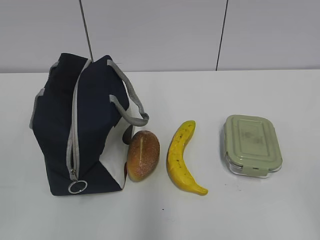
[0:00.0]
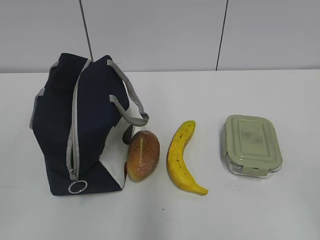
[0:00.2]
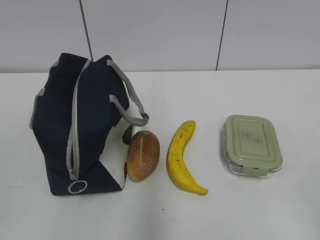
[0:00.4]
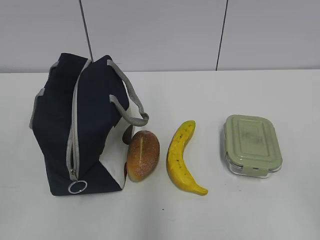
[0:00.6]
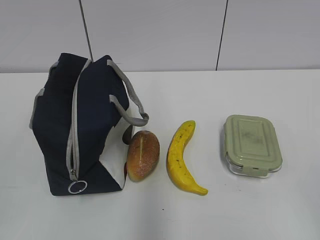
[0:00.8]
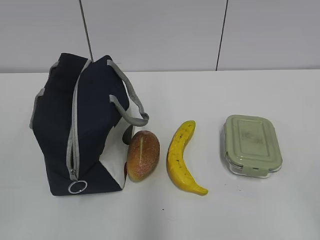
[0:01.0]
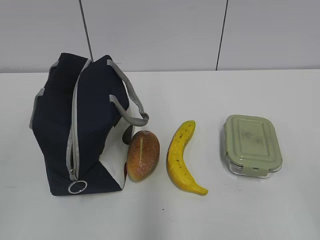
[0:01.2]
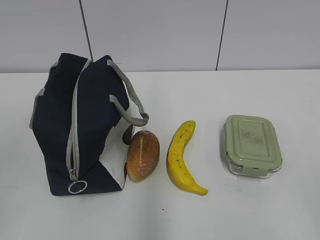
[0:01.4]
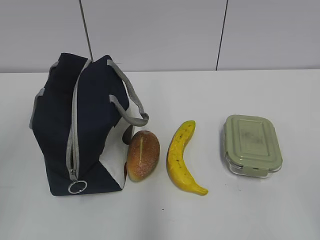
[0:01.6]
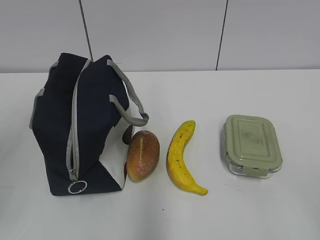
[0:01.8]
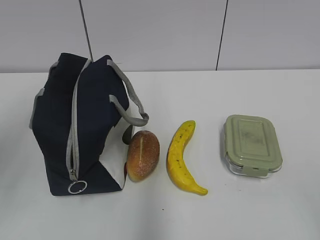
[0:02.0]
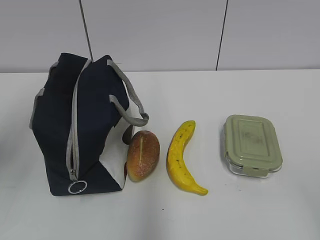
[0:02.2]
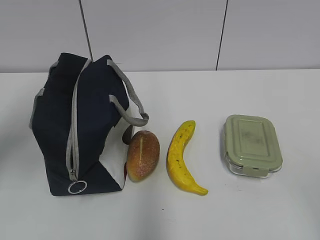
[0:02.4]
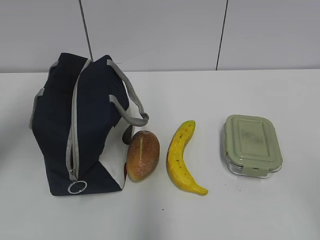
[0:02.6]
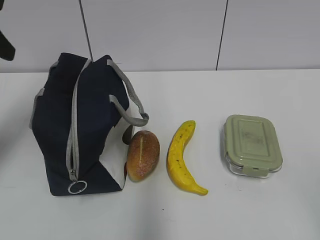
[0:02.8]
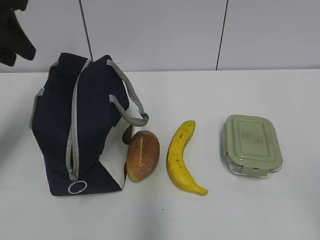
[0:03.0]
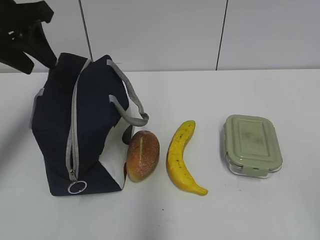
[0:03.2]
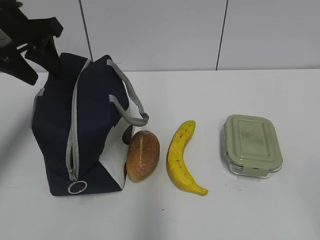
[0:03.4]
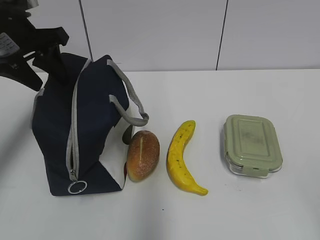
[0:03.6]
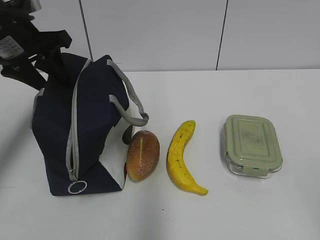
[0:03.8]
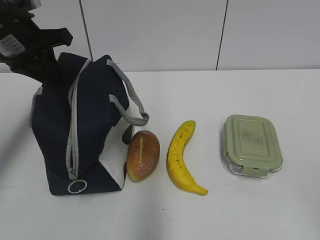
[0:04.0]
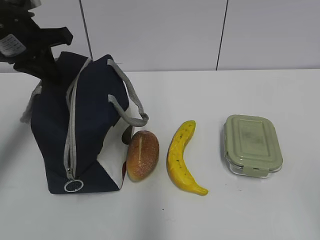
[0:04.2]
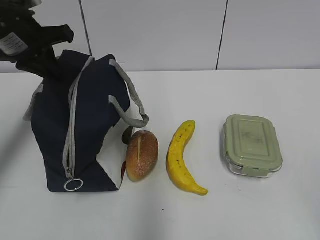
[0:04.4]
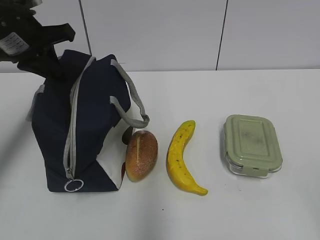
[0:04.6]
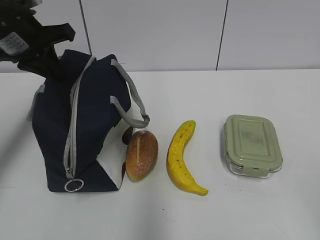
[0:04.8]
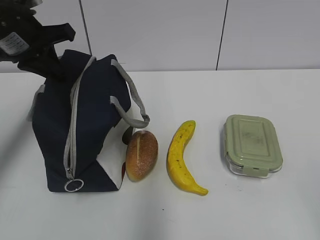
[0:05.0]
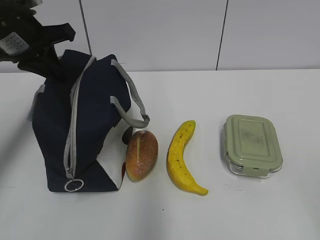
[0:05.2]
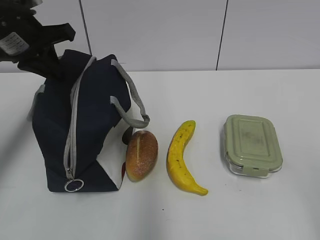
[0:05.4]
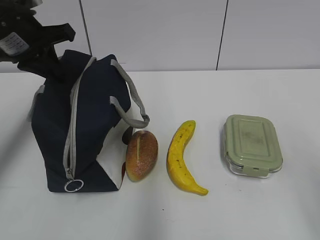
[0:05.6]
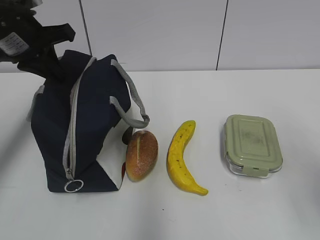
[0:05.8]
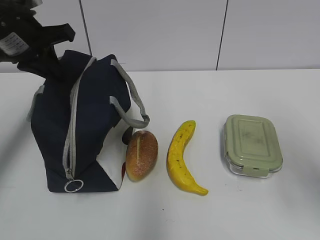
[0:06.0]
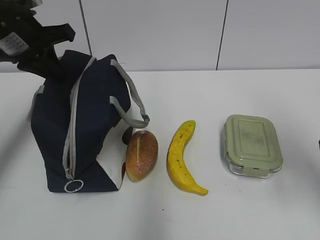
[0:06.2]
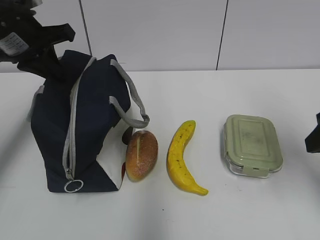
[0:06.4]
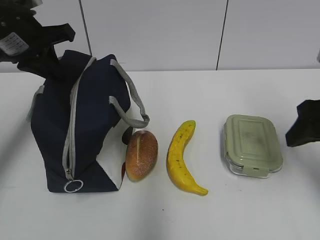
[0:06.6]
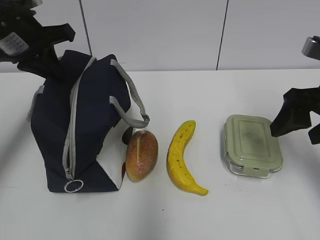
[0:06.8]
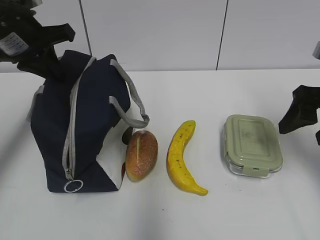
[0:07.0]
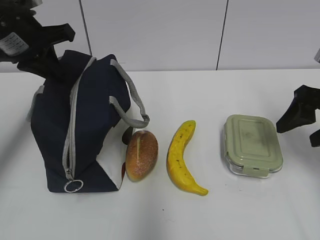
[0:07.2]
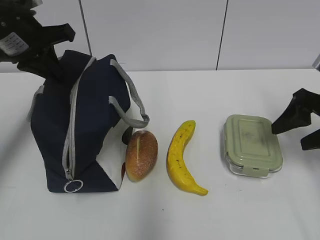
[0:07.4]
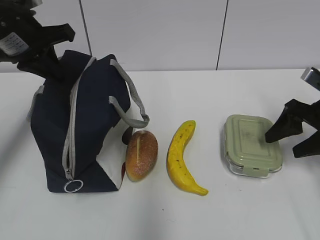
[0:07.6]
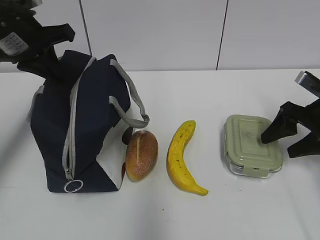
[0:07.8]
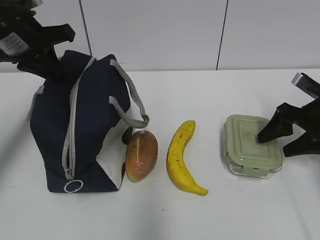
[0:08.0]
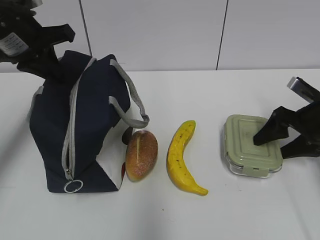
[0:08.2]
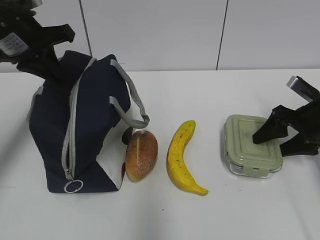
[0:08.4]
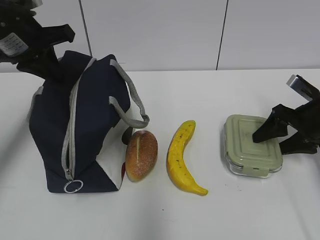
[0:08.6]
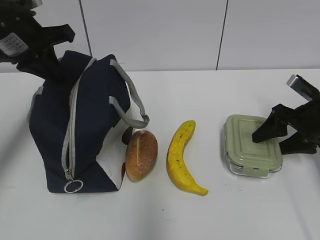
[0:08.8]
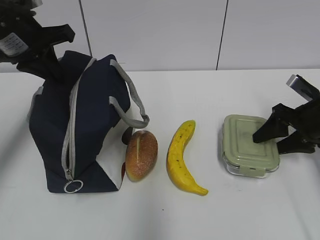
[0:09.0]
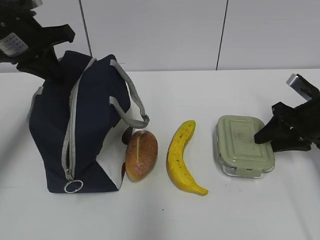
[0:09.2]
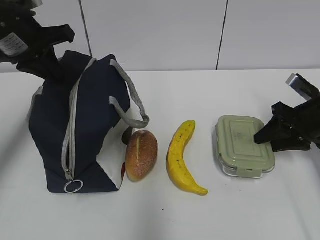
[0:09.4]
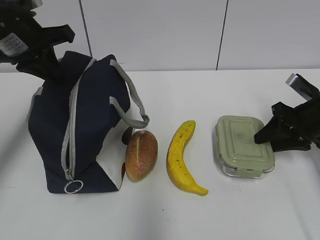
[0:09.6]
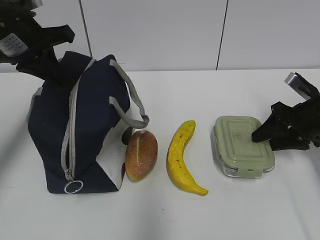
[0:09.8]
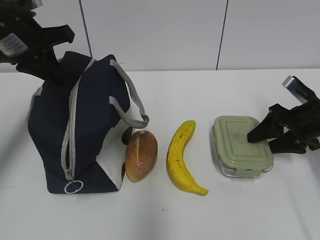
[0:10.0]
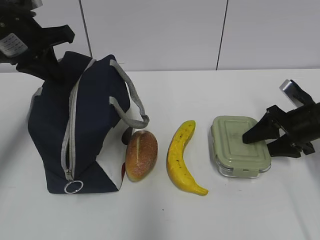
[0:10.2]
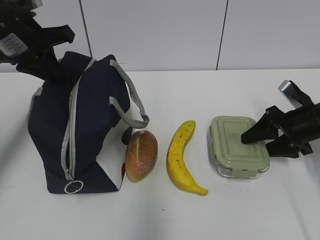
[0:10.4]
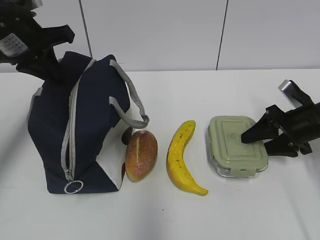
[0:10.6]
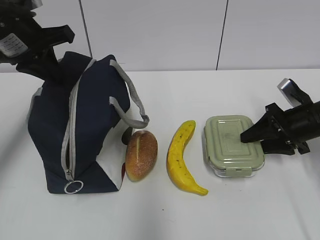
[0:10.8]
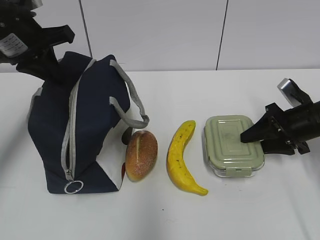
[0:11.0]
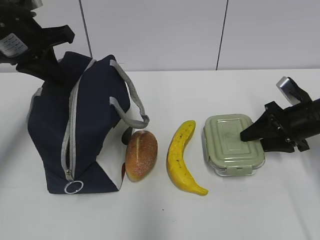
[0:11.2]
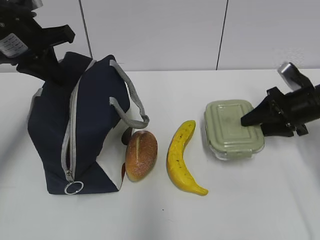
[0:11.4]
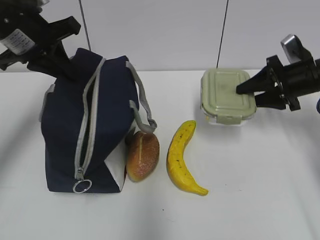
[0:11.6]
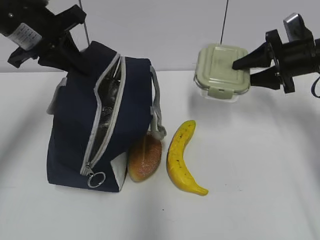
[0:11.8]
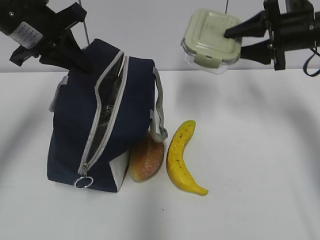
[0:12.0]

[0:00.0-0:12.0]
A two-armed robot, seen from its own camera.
Step, 0:00.0 to 0:11.0: Grab the lunch box with your right hand.
0:01.6 to 0:03.0: The left gripper moves forward, approximately 25 cm.
0:03.0 to 0:04.4: The left gripper shifts about 10 cm downward and forward, and closes its fingers.
0:04.4 to 0:06.0: The right gripper is displaced forward by about 15 cm.
0:06.0 to 0:07.6: The right gripper shifts roughly 20 cm forward and downward.
0:07.6 to 0:09.0: The grippers stay close to where they were, moving slightly.
0:09.0 to 0:10.4: The grippers make only small movements.
0:10.4 to 0:12.0: The right gripper shifts about 15 cm upward and forward.

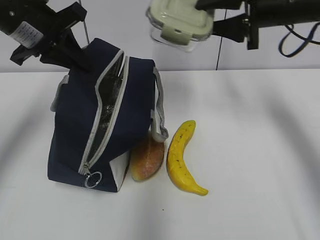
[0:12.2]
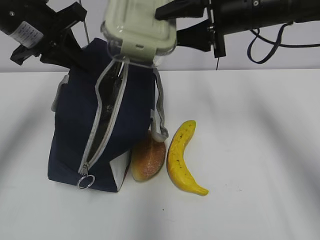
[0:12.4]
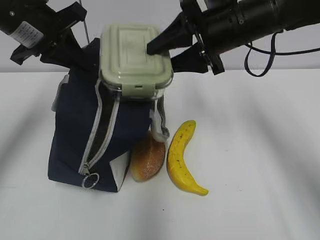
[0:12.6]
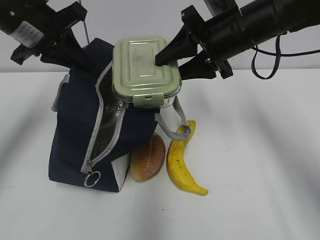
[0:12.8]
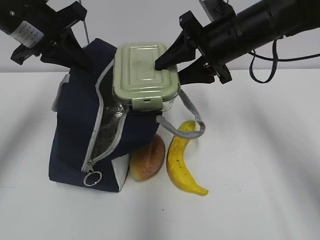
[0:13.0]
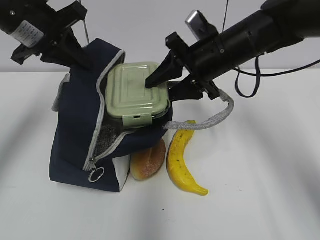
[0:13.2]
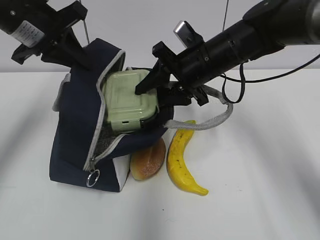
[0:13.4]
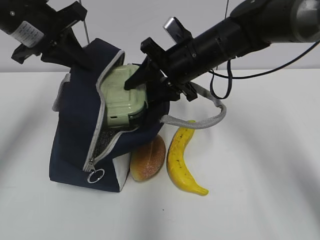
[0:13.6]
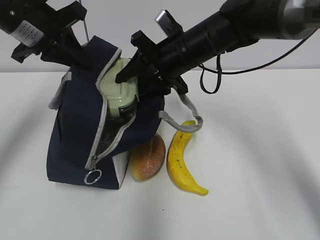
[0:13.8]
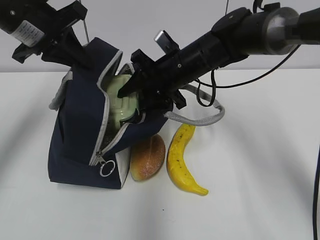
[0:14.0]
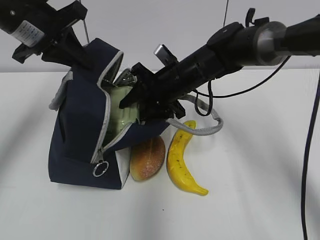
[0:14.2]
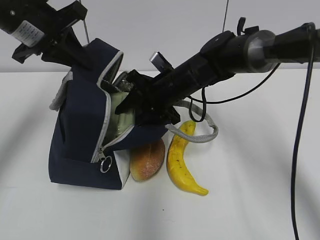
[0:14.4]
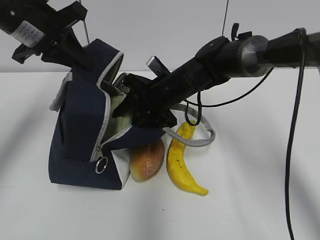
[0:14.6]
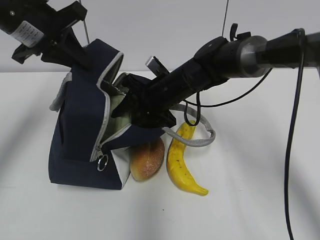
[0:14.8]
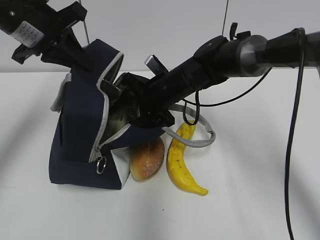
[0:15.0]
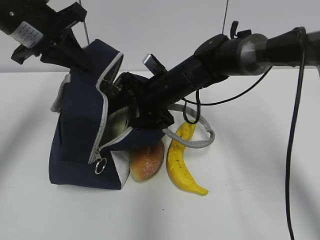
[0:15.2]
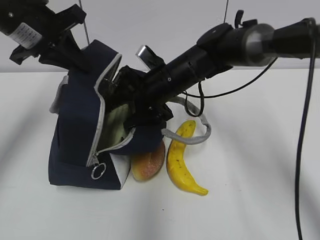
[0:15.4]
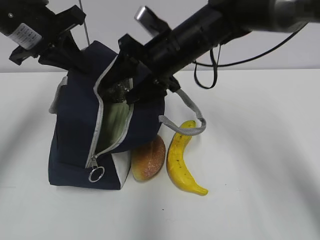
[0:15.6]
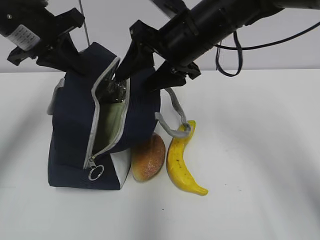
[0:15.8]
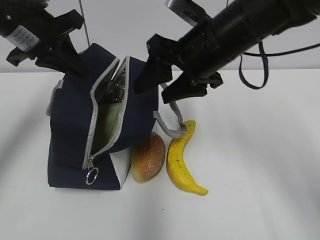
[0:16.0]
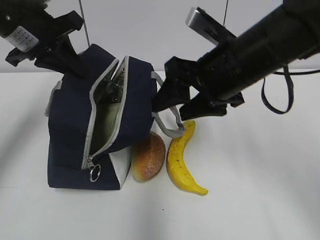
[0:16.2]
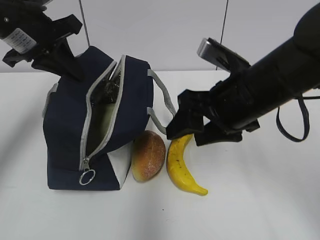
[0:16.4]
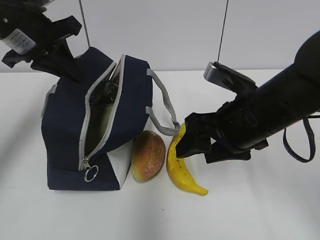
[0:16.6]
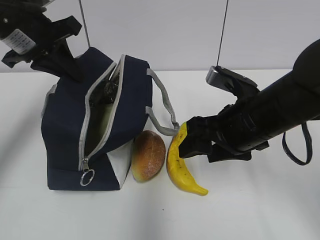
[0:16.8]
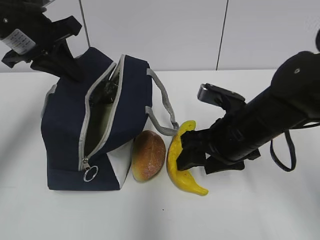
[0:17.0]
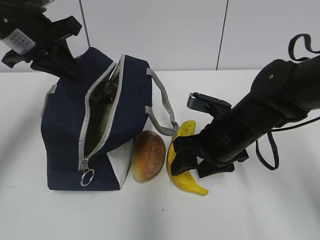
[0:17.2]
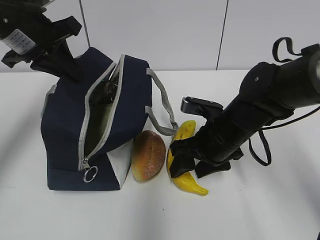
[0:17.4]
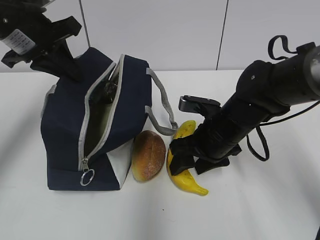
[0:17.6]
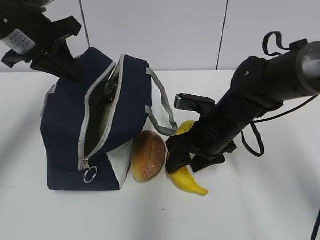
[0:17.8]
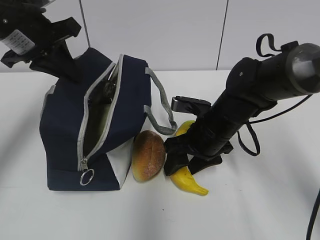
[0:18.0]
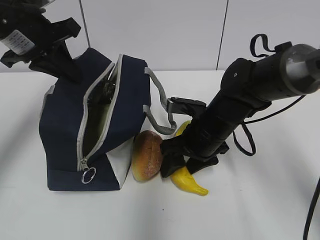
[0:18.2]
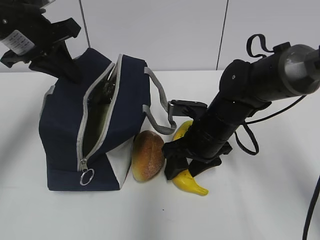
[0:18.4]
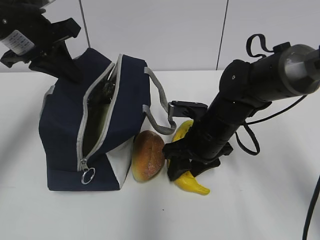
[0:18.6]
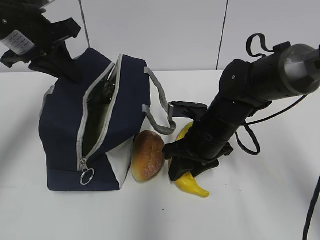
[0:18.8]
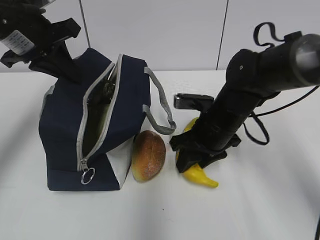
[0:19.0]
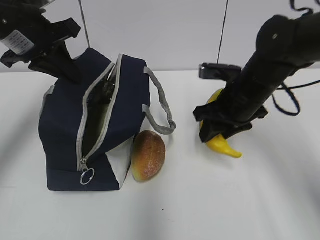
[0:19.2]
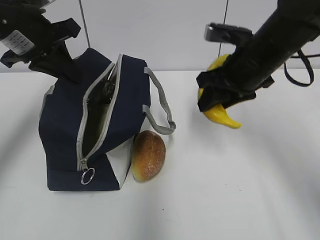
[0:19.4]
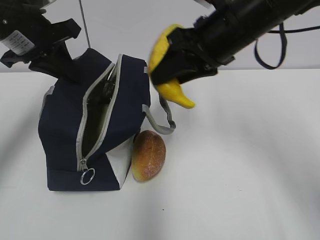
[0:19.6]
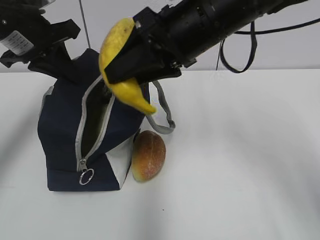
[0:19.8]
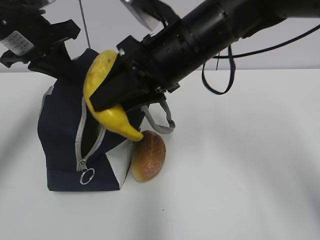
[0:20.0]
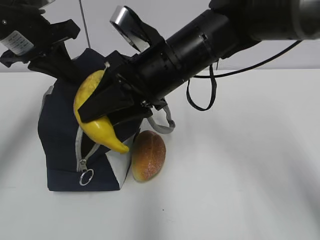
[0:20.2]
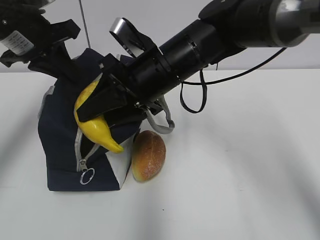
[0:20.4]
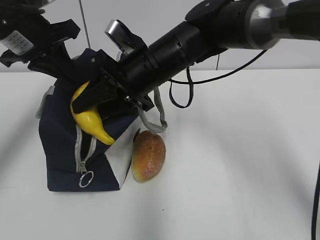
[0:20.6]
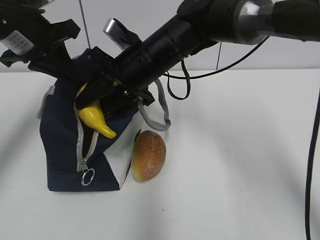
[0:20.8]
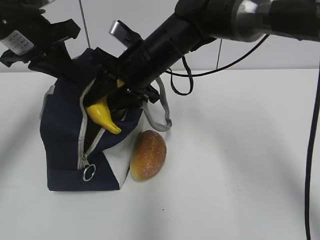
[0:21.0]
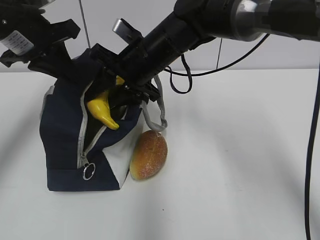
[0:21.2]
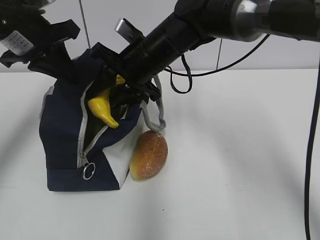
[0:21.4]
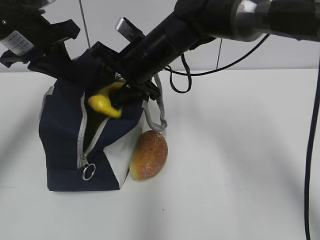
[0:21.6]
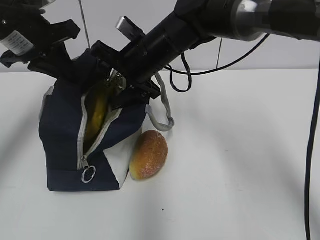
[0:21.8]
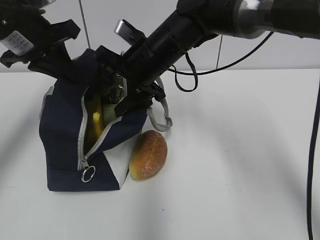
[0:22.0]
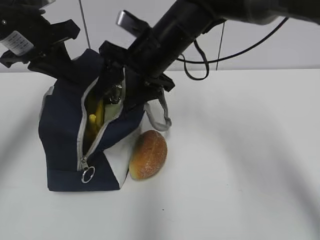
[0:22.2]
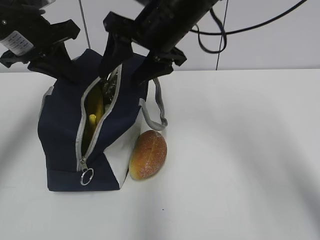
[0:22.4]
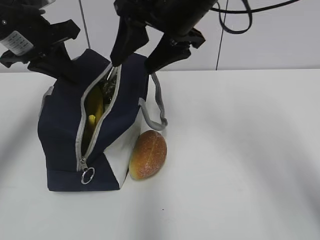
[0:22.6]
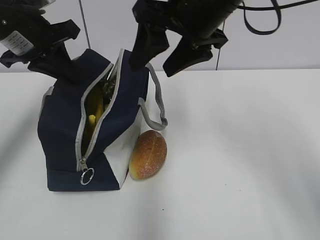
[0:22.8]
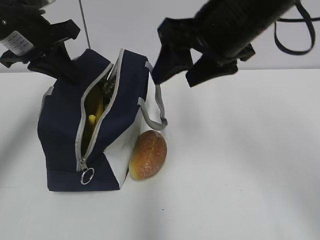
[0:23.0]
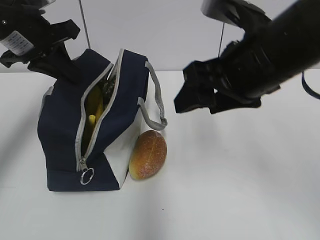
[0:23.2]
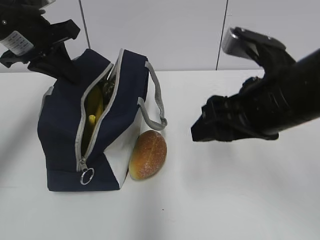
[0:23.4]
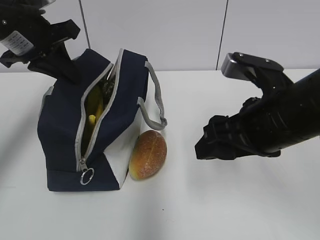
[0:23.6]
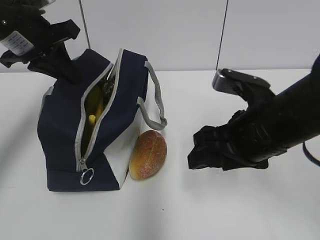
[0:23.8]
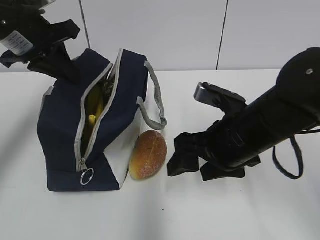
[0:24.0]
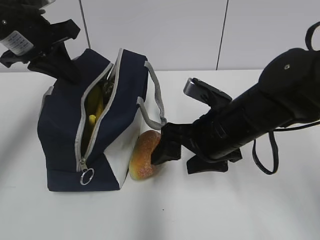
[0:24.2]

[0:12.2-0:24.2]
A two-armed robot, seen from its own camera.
Step, 0:13.0 to 0:15.4: Place it into the bag with your right hand.
Step, 0:15.6 to 0:18.6: Grab the banana with your right hand.
Step, 0:18.8 to 0:22.0: Place it into the bag with your right hand.
0:12.2 to 0:13.8: The right gripper shifts about 15 cm to the left and downward.
0:13.8 to 0:15.2: The right gripper moves downward, approximately 5 cm.
0:15.2 to 0:16.6: The right gripper moves backward and to the right, roughly 20 cm.
0:16.6 to 0:18.2: The right gripper travels downward and forward by roughly 10 cm.
0:18.2 to 0:19.8: The right gripper travels upward by approximately 20 cm.
0:19.8 to 0:21.2: The right gripper moves forward, downward and to the left, roughly 15 cm.
0:21.2 to 0:22.6: The right gripper moves upward, to the right and backward, approximately 15 cm.
0:22.6 to 0:24.2: The right gripper shifts some 15 cm downward and backward.
